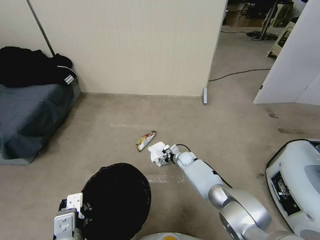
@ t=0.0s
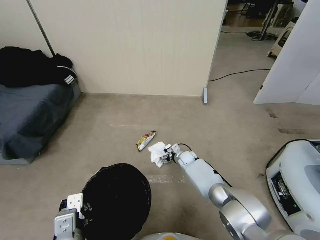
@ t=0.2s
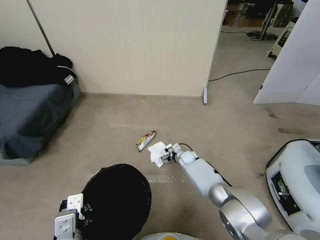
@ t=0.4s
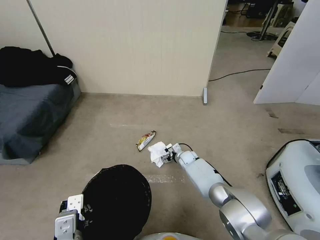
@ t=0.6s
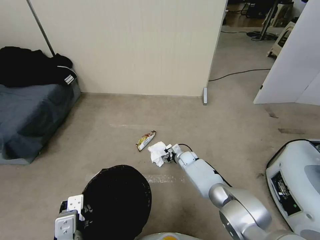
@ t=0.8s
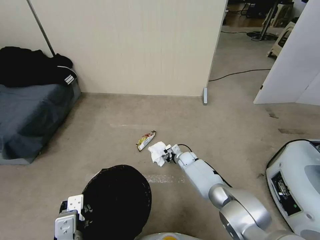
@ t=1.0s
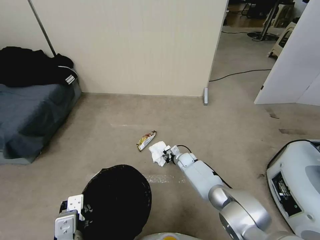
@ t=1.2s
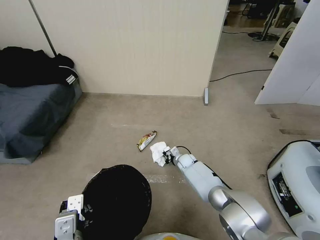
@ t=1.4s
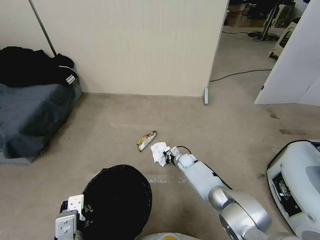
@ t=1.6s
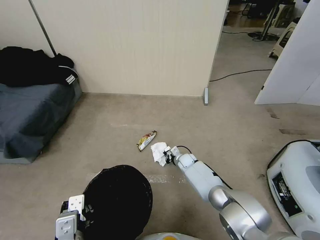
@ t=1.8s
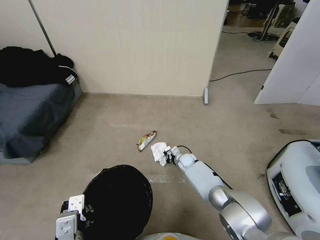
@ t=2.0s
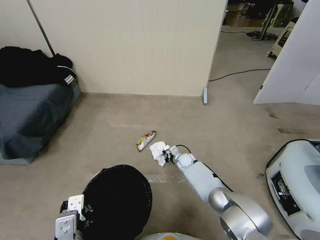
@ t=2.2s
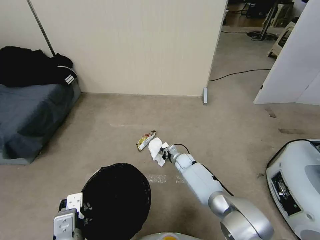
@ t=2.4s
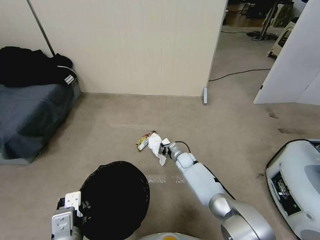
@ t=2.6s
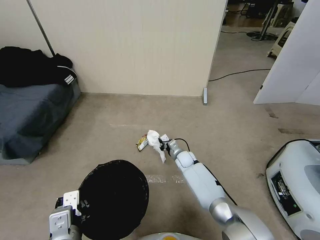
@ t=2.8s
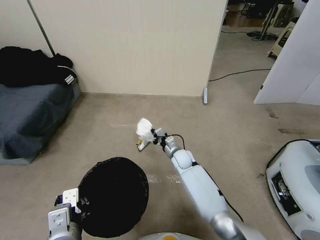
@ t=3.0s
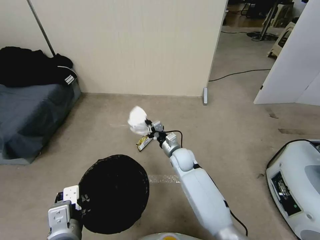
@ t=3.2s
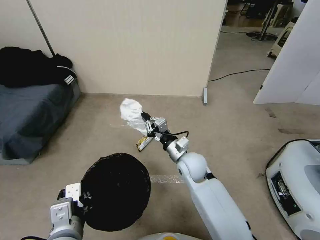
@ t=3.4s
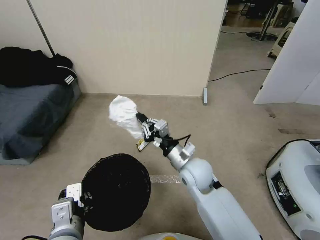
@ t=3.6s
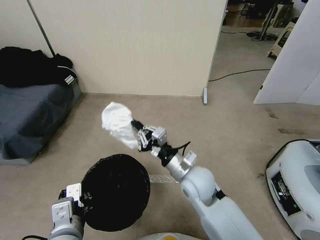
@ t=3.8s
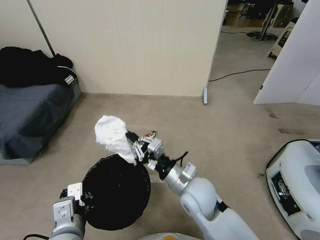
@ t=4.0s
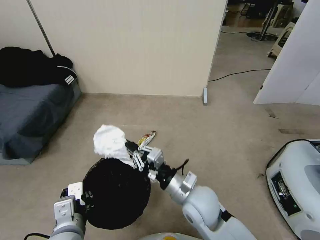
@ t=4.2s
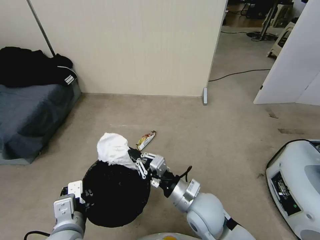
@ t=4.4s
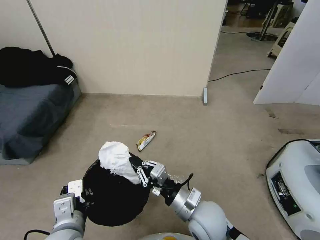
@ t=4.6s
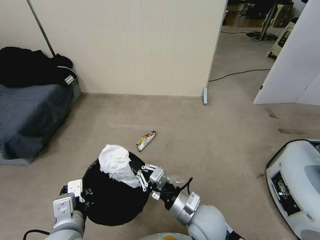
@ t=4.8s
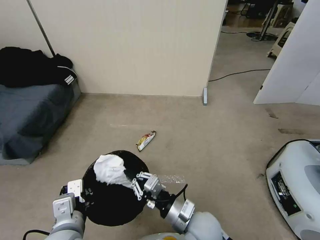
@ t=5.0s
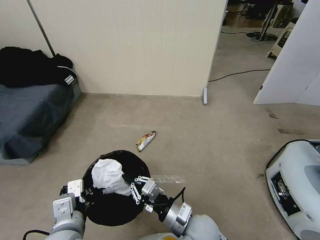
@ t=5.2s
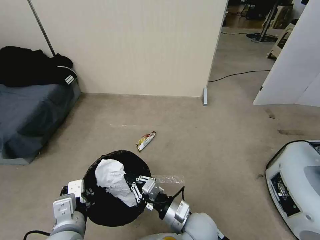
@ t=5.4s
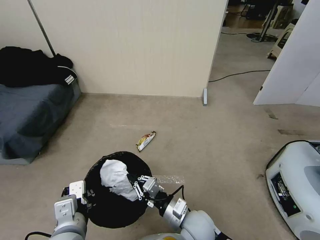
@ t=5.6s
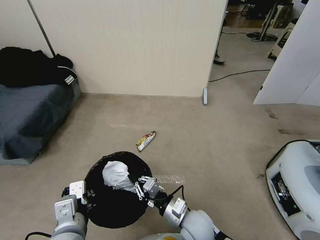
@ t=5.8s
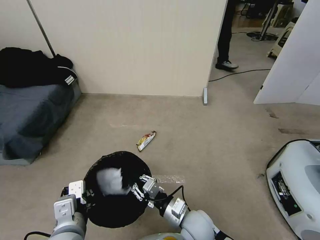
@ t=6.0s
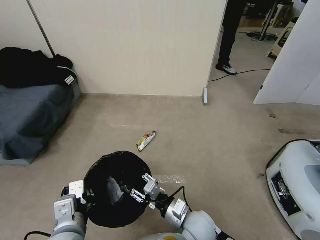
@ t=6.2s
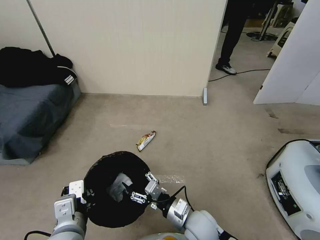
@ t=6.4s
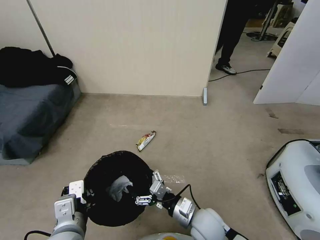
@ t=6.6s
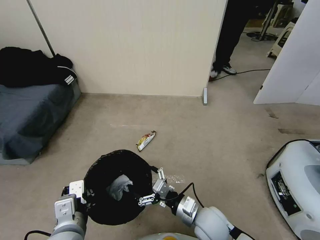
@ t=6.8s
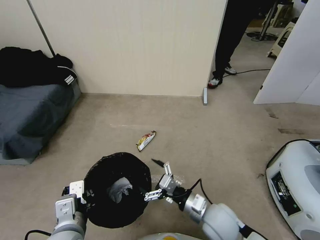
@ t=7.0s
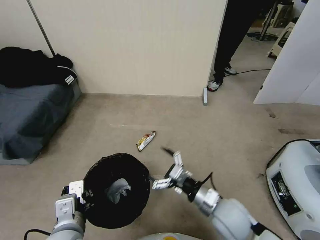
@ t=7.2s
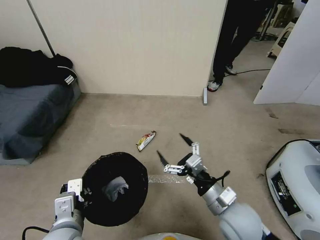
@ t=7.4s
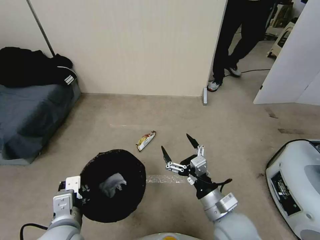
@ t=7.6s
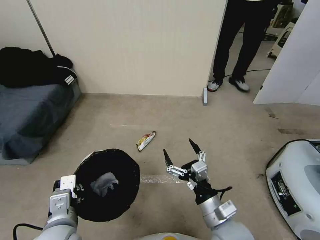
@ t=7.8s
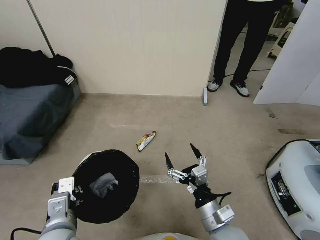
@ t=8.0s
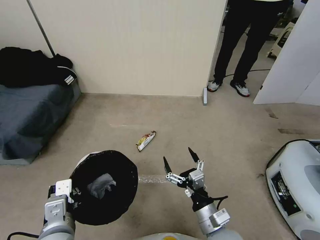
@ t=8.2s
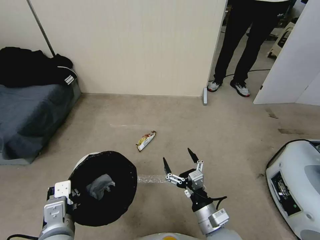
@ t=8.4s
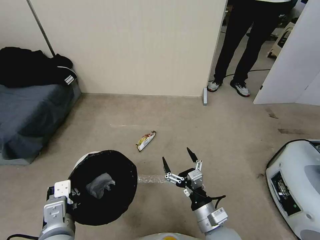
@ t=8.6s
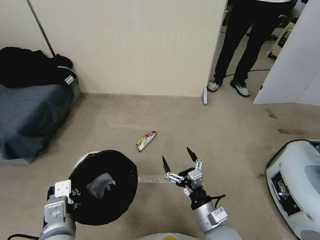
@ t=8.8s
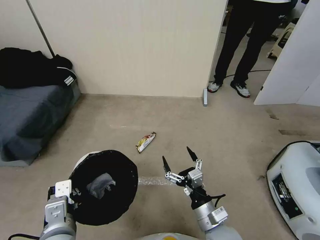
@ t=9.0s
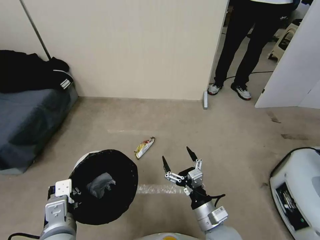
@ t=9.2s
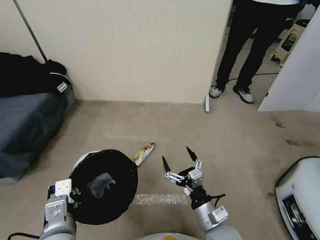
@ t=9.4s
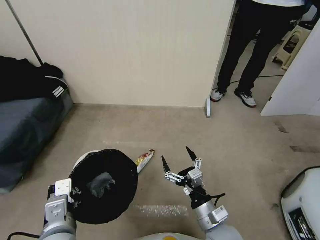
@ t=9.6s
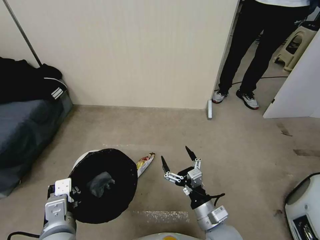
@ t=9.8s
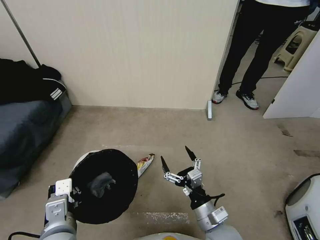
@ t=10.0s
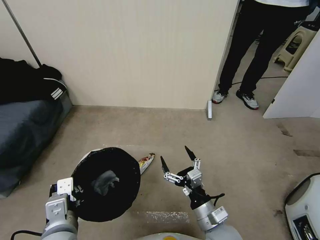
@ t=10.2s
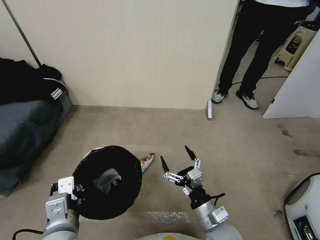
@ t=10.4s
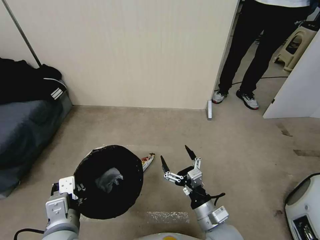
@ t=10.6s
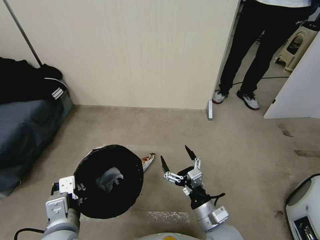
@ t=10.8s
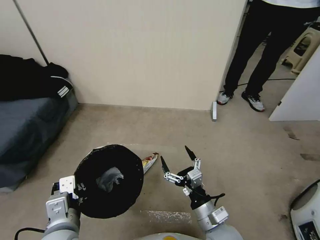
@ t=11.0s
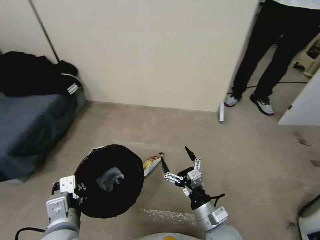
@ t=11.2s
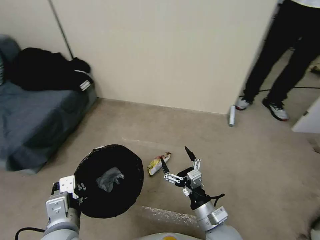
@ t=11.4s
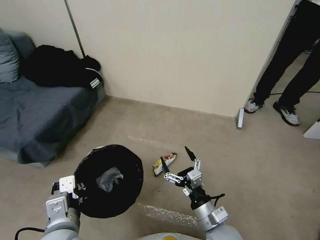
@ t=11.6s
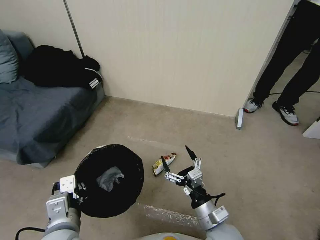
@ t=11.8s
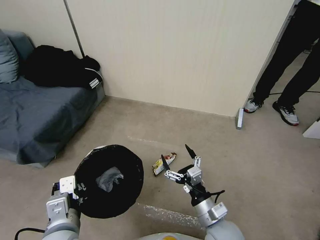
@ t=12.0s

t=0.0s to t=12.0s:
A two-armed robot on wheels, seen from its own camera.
Task of the whole recording: Pick up the trash bin, then pick up the garbage from the floor and place it into the trash bin.
t=0.0s to t=1.6s: The right gripper closes up.
t=1.6s to t=3.0s: The right gripper travels upward by approximately 10 cm.
t=3.0s to t=4.4s: The right gripper shifts roughly 25 cm backward and upward.
t=4.4s to t=6.0s: The right gripper moves downward, approximately 10 cm.
t=6.0s to t=7.6s: The right gripper moves upward and to the right, approximately 10 cm, and opens up.
t=7.6s to t=9.0s: The right gripper moves downward, approximately 5 cm.

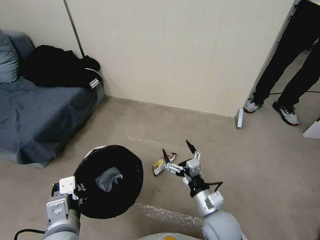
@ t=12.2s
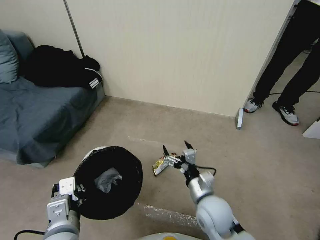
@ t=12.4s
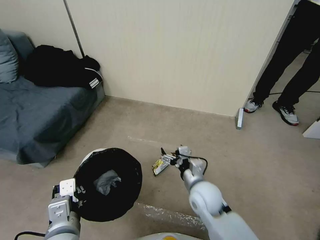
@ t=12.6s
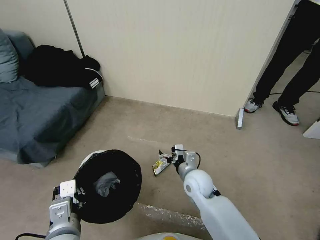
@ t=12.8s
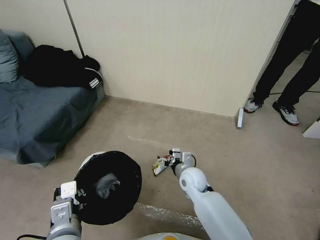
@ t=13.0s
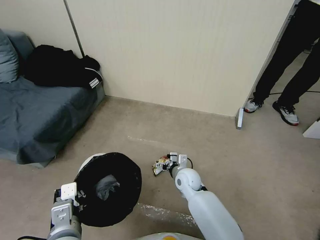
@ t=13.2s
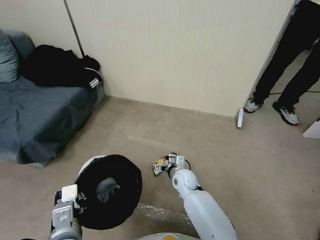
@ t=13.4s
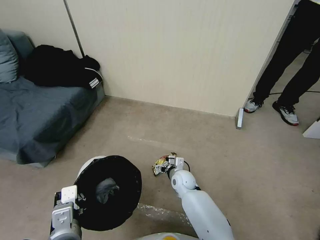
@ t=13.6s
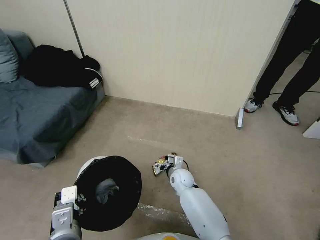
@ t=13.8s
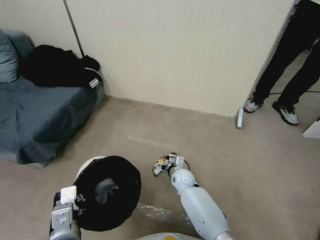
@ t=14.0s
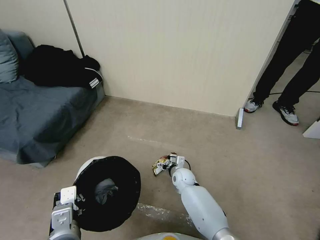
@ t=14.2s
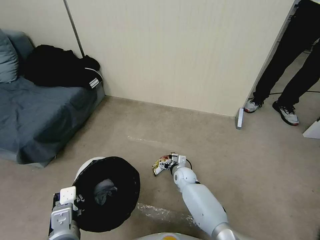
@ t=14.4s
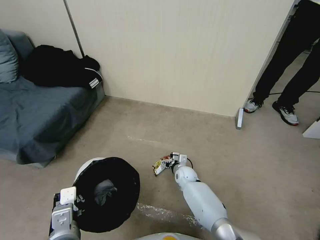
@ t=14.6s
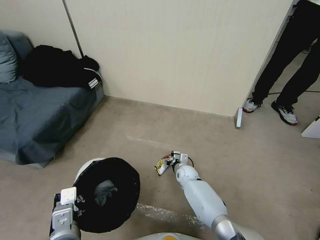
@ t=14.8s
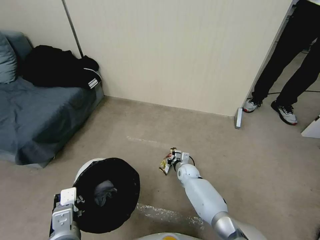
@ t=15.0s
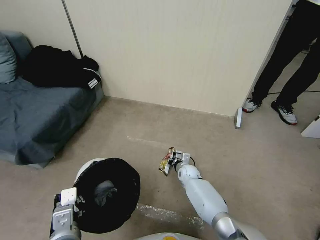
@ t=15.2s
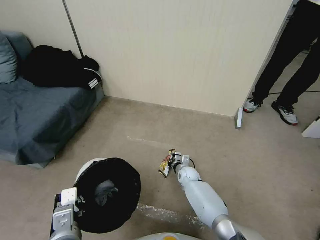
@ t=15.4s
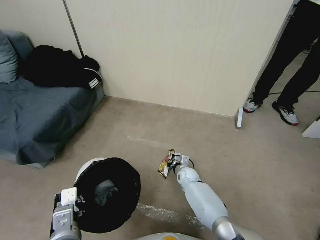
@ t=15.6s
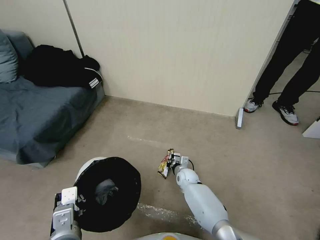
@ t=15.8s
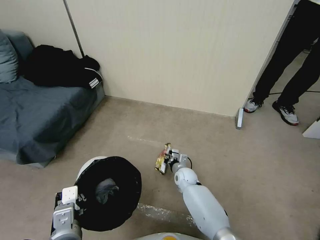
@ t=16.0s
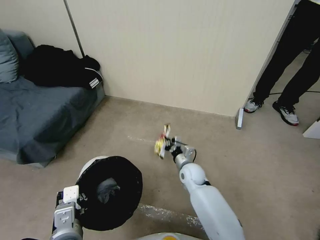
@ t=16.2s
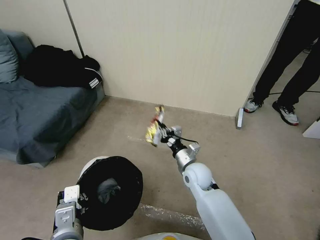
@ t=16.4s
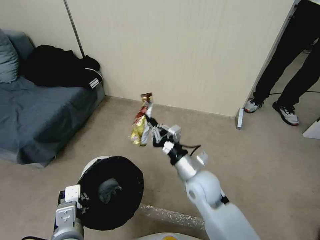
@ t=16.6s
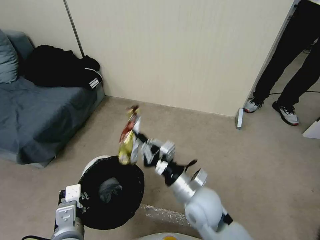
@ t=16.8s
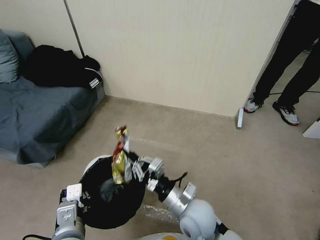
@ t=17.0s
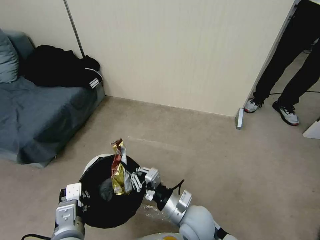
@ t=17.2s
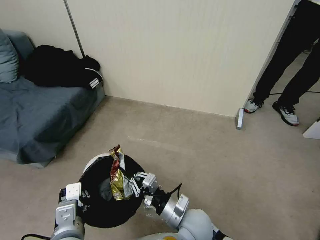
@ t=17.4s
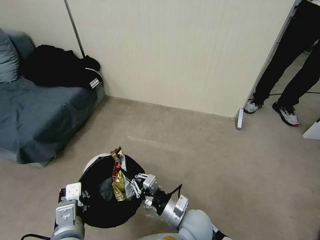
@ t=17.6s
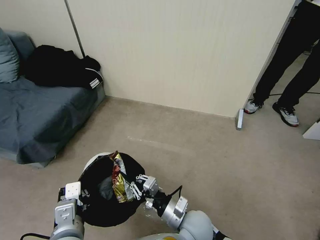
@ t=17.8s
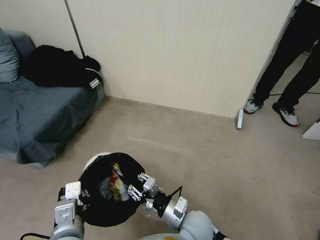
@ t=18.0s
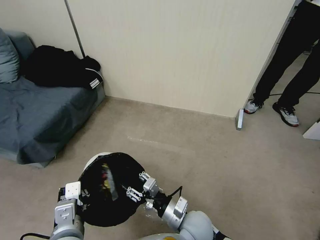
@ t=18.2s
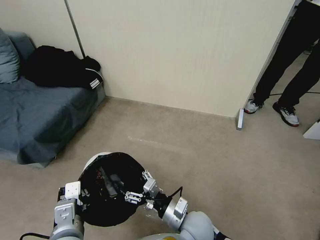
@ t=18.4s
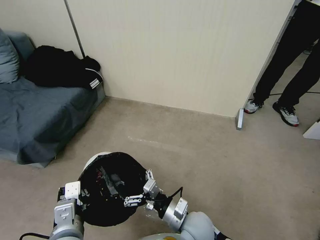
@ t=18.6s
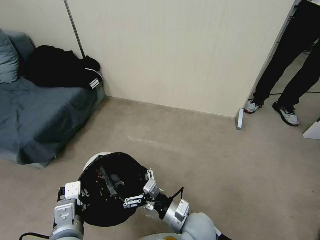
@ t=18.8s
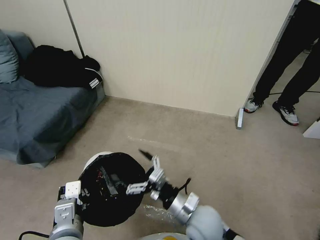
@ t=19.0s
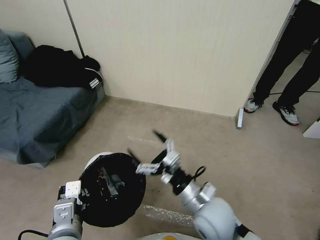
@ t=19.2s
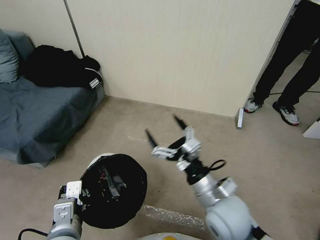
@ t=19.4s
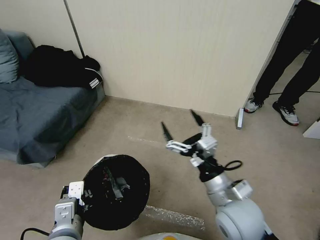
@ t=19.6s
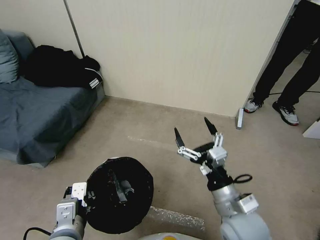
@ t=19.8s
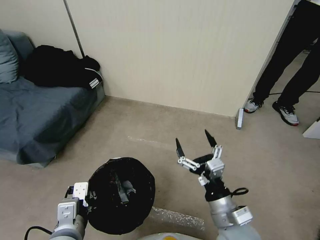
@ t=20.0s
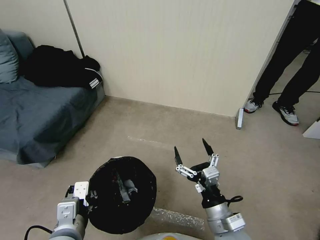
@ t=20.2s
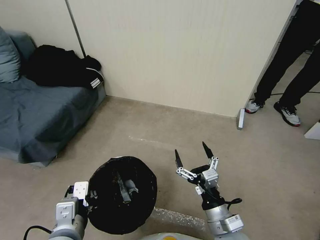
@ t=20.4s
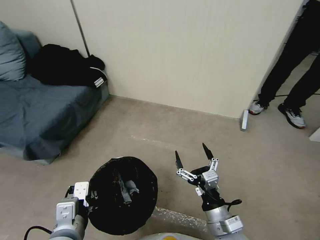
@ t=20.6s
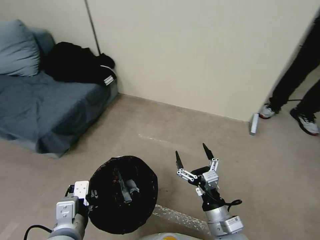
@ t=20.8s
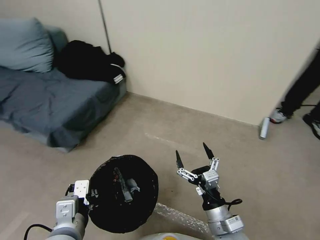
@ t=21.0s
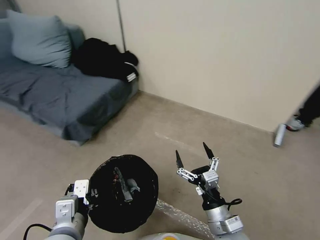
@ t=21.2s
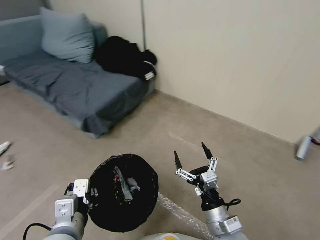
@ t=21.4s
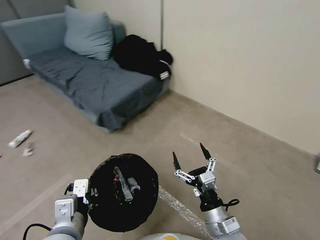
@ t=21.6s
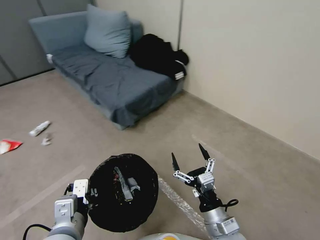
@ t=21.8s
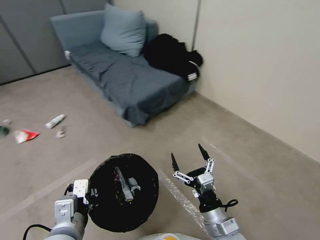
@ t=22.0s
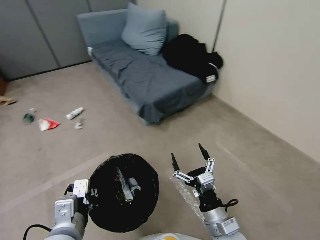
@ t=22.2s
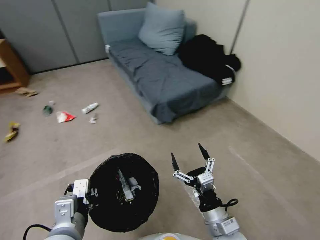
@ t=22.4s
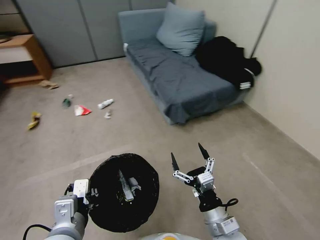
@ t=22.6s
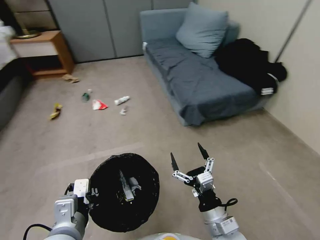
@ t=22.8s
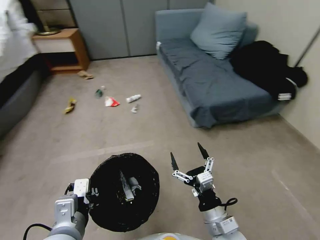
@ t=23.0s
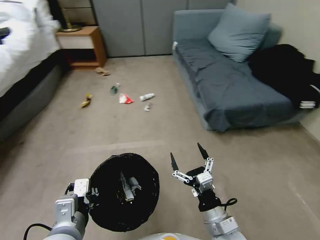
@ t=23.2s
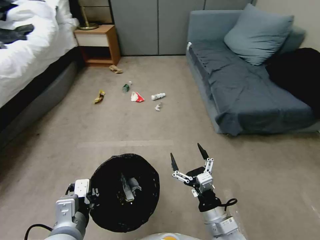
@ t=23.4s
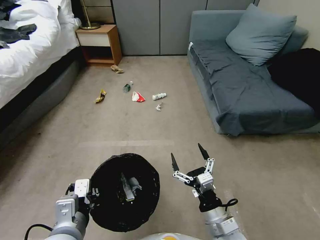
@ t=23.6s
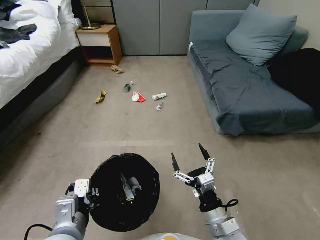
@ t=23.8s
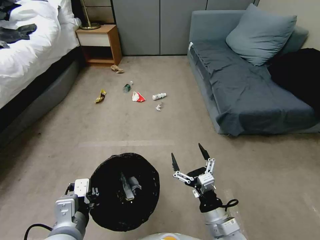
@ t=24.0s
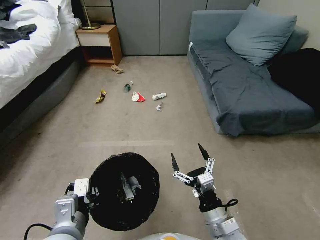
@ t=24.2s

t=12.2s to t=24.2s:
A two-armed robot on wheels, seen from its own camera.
Task of the whole recording: Pick up the trash bin, then pick up the garbage from the floor and place it into the trash bin.
t=12.2s to t=13.8s: The right gripper is displaced forward, downward and to the left by approximately 25 cm.
t=13.8s to t=15.2s: The right gripper travels downward by approximately 5 cm, and closes its fingers.
t=15.2s to t=16.6s: The right gripper shifts some 30 cm upward and backward.
t=16.6s to t=18.2s: The right gripper moves downward and backward, about 15 cm, and opens its fingers.
t=18.2s to t=19.8s: The right gripper moves upward and to the right, approximately 15 cm, and opens.
t=19.8s to t=21.2s: The right gripper is displaced downward by approximately 10 cm.
